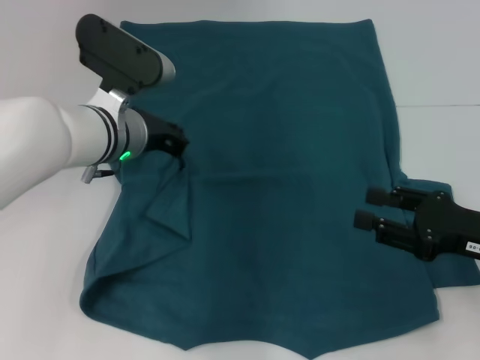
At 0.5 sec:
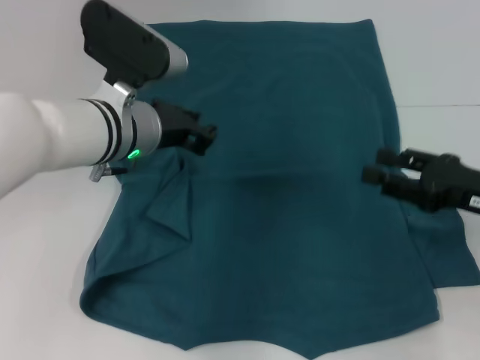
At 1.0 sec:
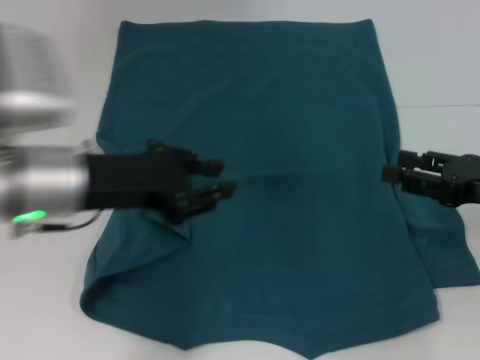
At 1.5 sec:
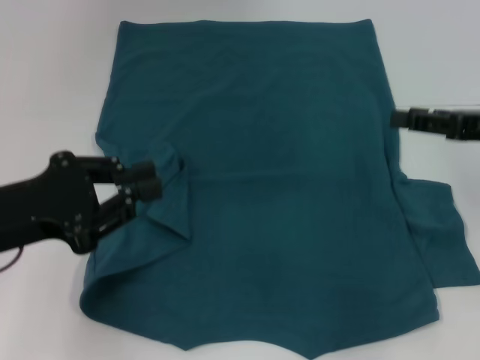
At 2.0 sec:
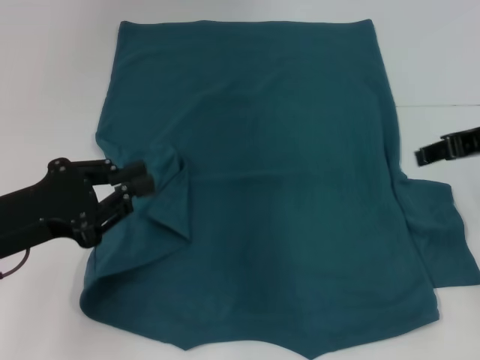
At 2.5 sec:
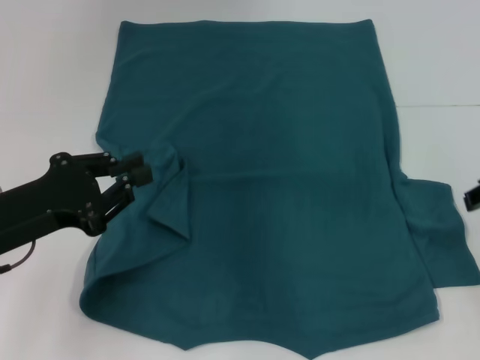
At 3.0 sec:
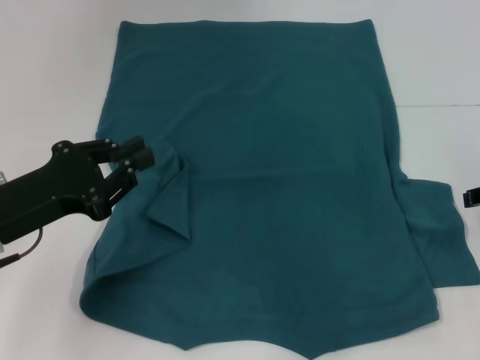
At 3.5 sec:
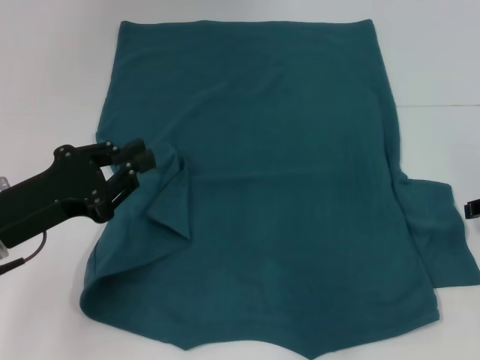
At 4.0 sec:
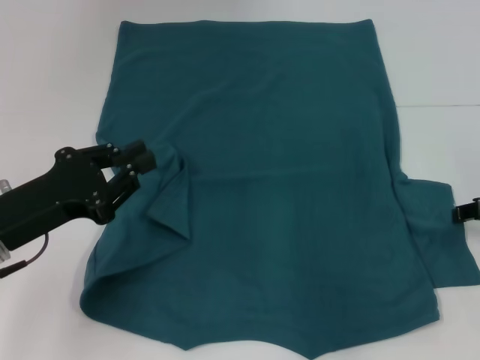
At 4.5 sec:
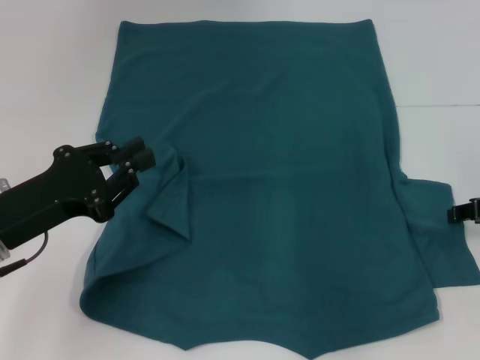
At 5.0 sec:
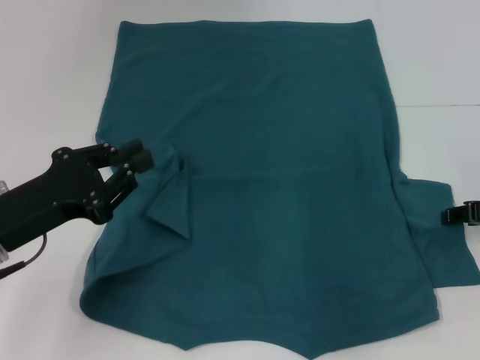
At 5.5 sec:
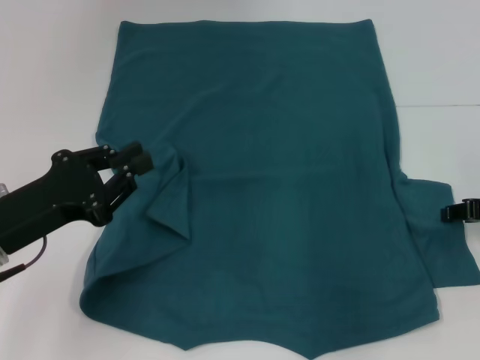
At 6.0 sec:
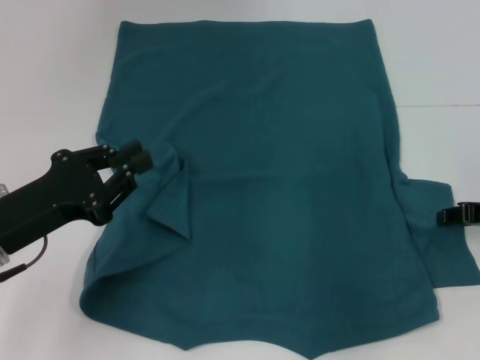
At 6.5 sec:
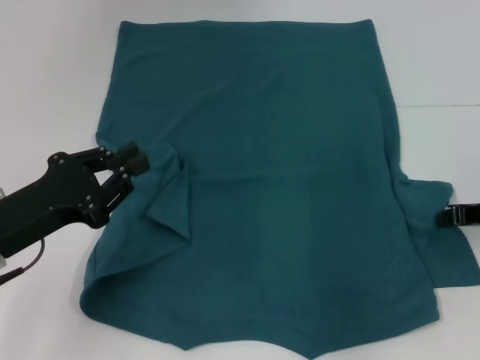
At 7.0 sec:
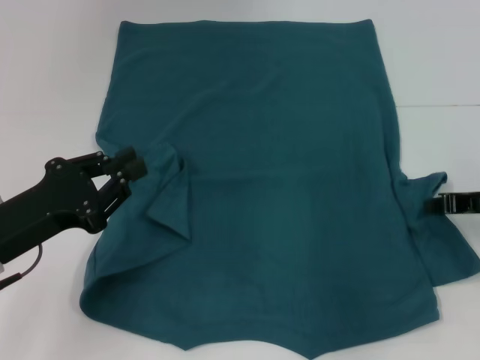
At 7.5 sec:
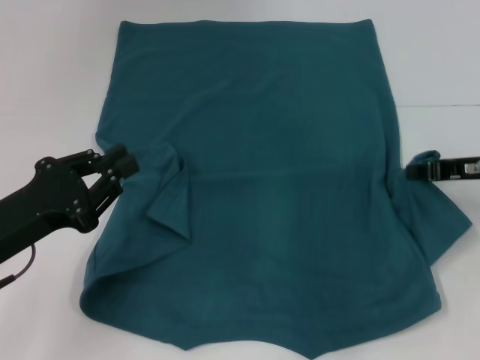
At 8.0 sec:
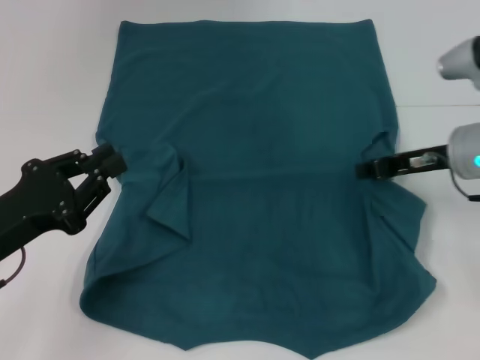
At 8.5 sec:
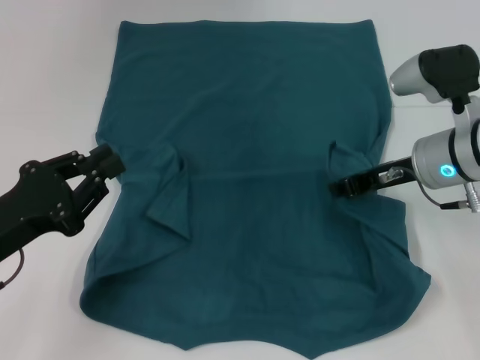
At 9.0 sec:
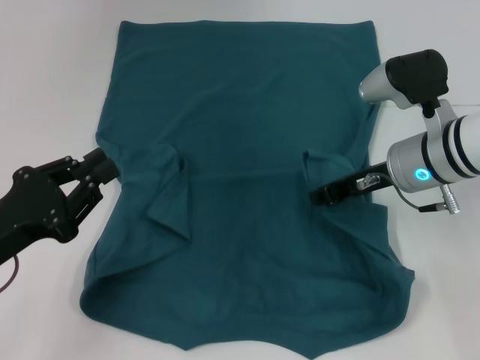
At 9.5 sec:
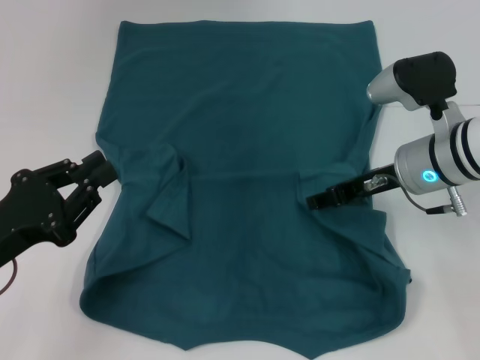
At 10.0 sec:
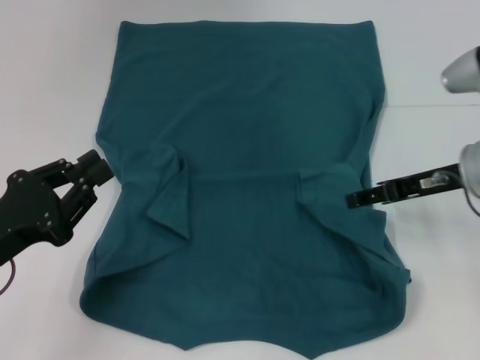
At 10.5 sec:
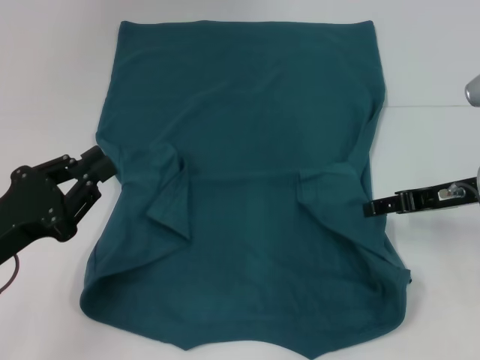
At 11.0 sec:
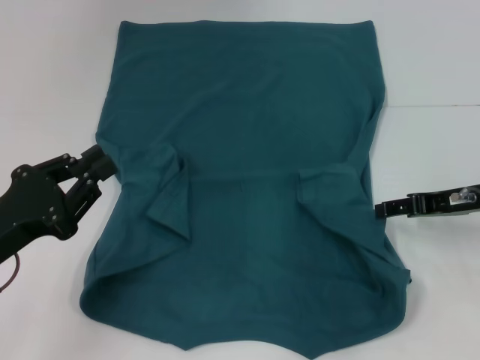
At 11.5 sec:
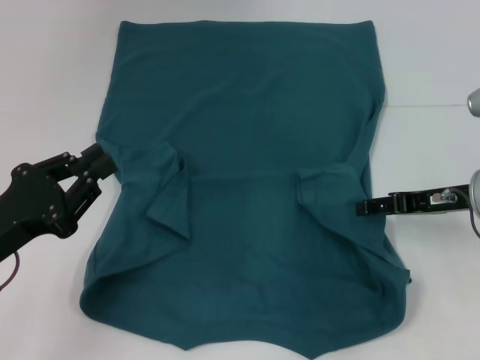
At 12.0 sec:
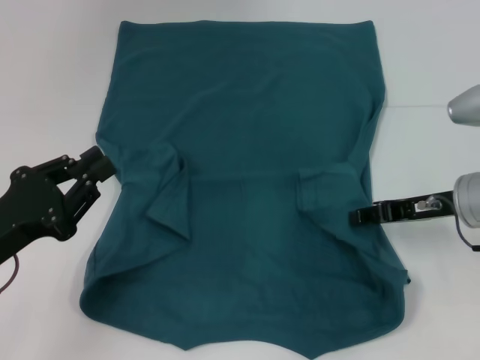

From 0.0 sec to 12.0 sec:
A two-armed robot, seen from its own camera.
From 0.0 sec to 2.0 sec: The left gripper is displaced backward and to the left by roughly 20 cm. The right gripper is displaced upward and forward by approximately 15 cm.
From 2.0 sec to 4.0 sec: The right gripper moves downward and to the right, some 10 cm.
From 4.0 sec to 6.0 sec: The grippers make only small movements.
From 6.0 sec to 8.0 sec: The right gripper shifts some 10 cm to the left, and closes its fingers.
From 8.0 sec to 10.0 sec: The right gripper opens its fingers.
From 10.0 sec to 12.0 sec: The grippers move only a little.

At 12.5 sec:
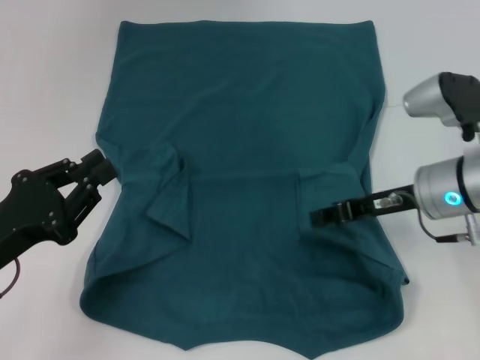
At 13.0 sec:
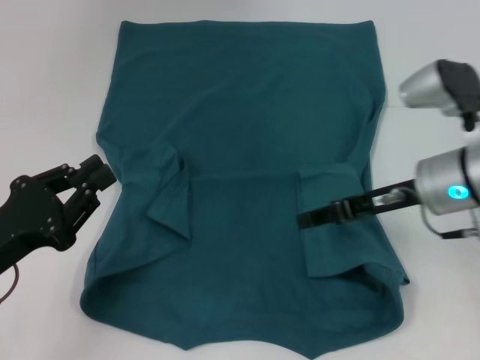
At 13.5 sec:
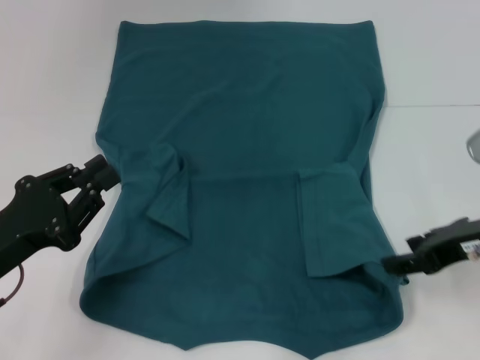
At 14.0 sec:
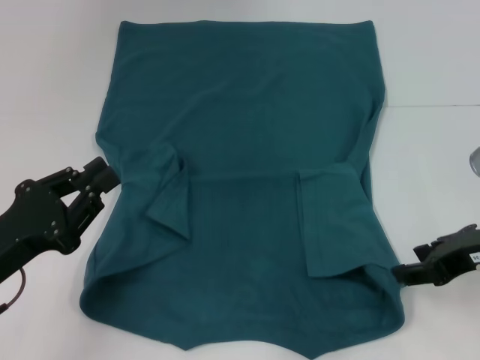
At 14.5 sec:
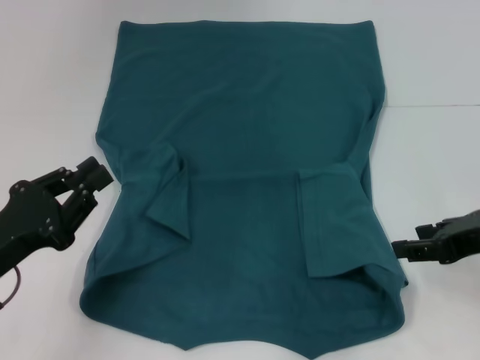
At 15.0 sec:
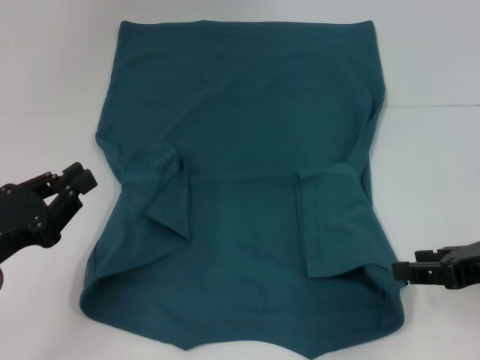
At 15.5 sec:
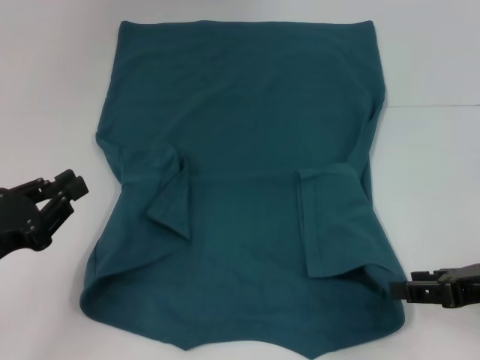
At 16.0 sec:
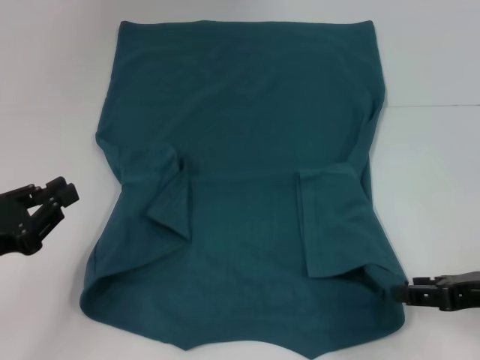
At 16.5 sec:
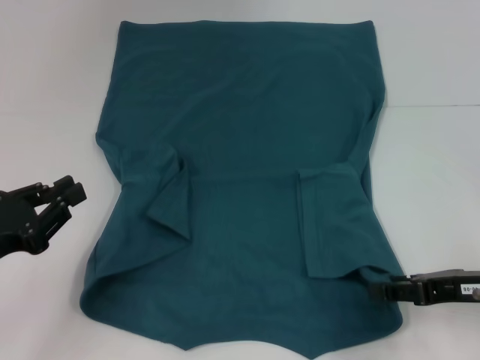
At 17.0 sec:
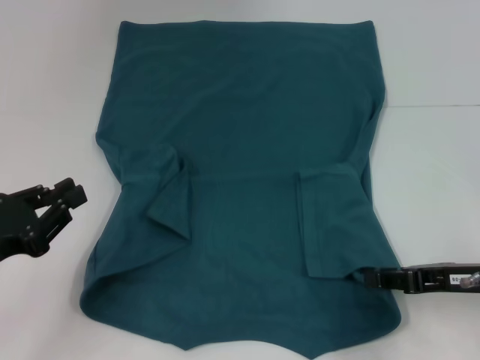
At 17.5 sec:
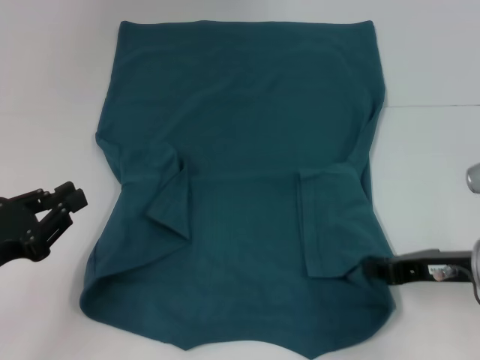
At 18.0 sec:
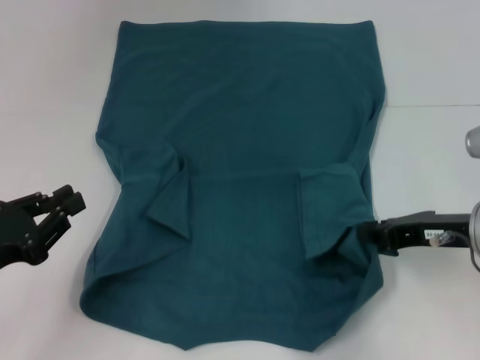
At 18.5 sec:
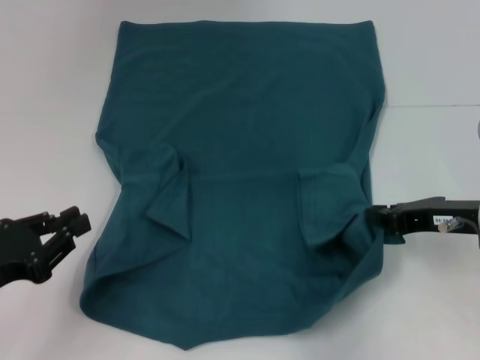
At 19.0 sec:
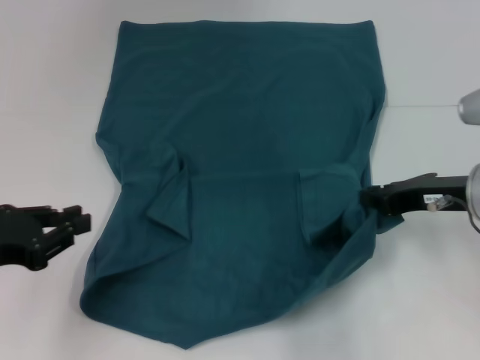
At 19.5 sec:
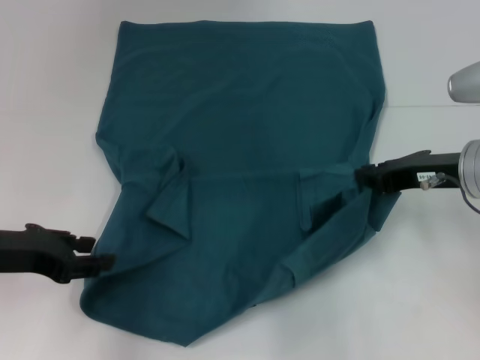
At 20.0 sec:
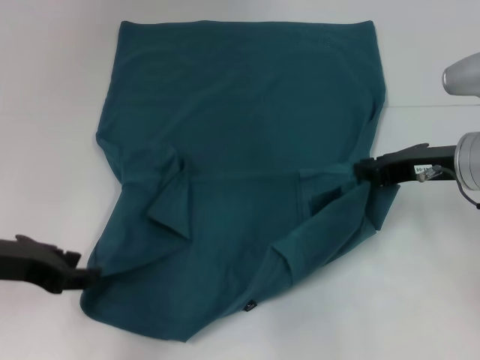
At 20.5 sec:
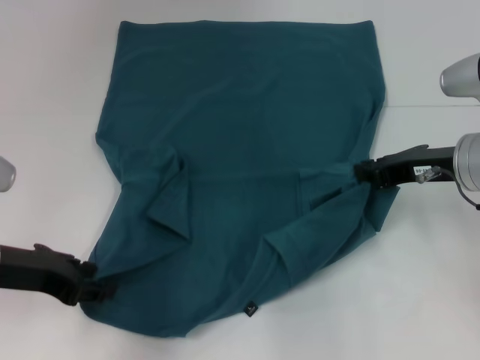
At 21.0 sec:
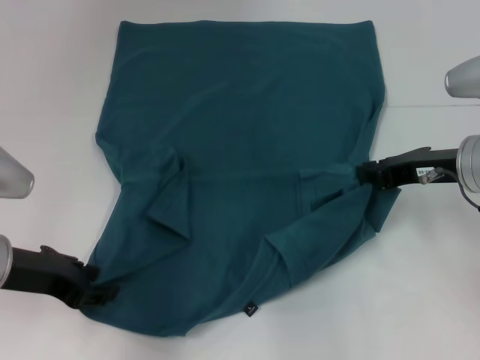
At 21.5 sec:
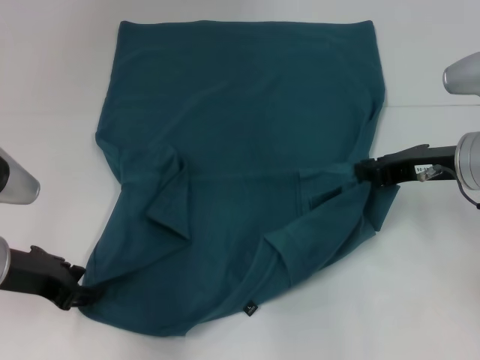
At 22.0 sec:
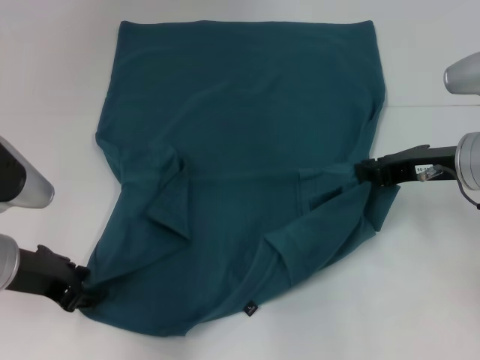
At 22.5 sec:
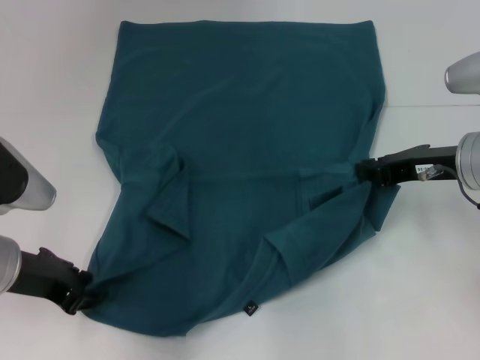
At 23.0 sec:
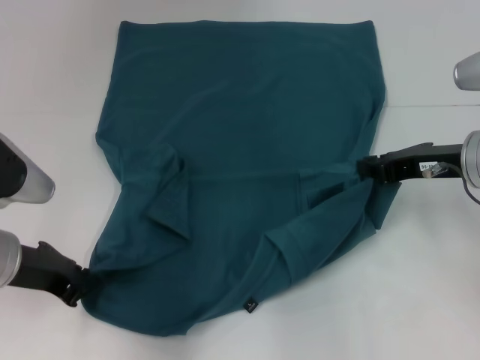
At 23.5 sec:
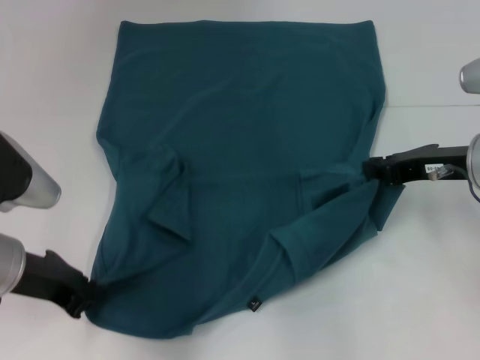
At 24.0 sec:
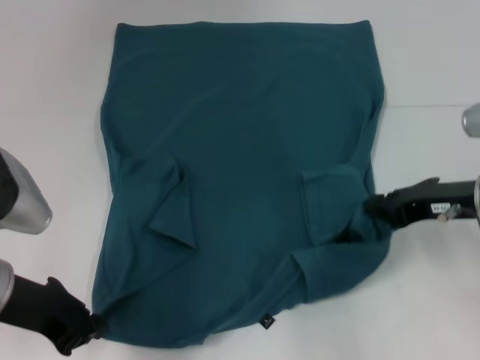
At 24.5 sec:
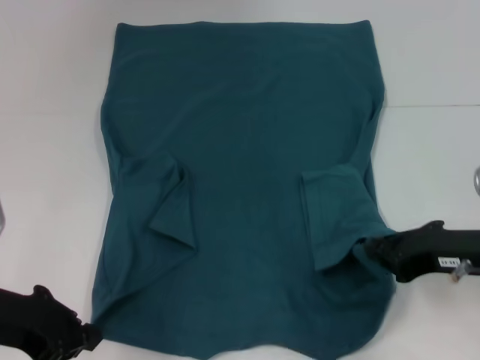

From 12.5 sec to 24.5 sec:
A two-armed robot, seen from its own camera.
Step, from 13.0 sec to 17.5 sec: Grab the bottom right corner with your right hand.
Step, from 18.0 sec to 23.0 sec: Grab the bottom left corner with your left hand.
From 12.5 sec to 14.5 sec: The right gripper heads backward, to the right and upward, covering about 10 cm, and opens up.
From 14.5 sec to 16.5 sec: The right gripper goes some 5 cm downward.
From 16.5 sec to 18.5 sec: The right gripper shifts approximately 5 cm forward, and closes.
From 18.5 sec to 20.5 sec: The right gripper shifts by approximately 5 cm, while the left gripper goes roughly 5 cm forward, and opens up.
From 20.5 sec to 22.5 sec: There are only small adjustments of the grippers.
From 22.5 sec to 24.5 sec: The left gripper moves some 5 cm, and closes. Meanwhile the right gripper goes some 10 cm backward.

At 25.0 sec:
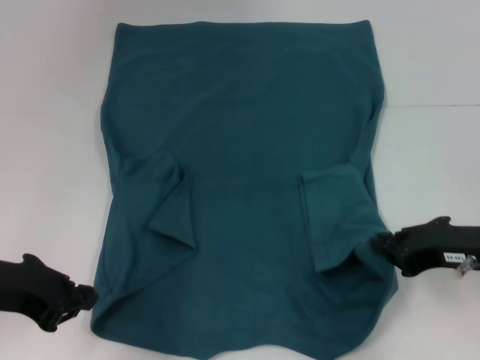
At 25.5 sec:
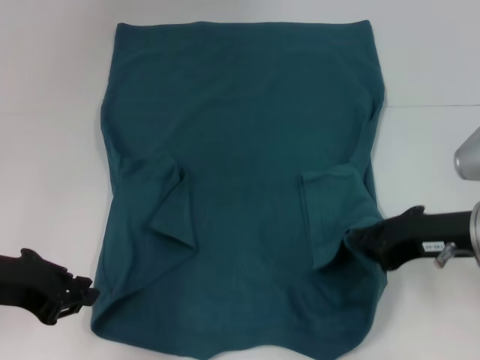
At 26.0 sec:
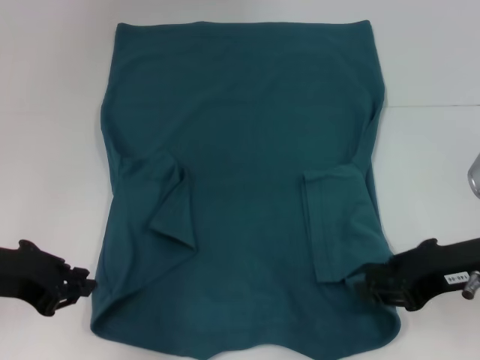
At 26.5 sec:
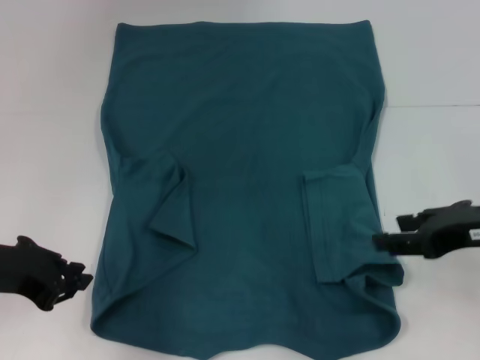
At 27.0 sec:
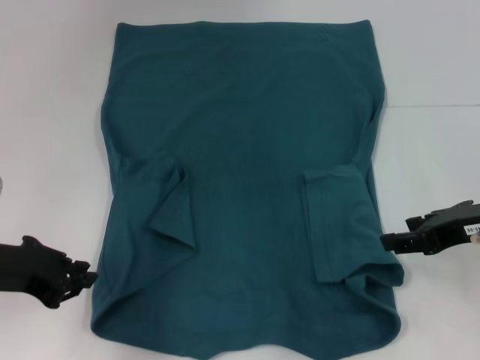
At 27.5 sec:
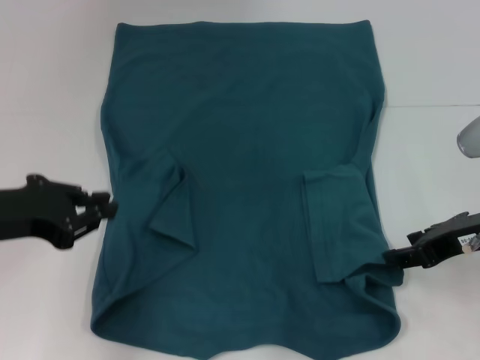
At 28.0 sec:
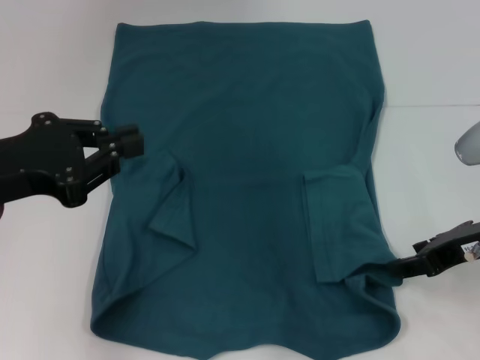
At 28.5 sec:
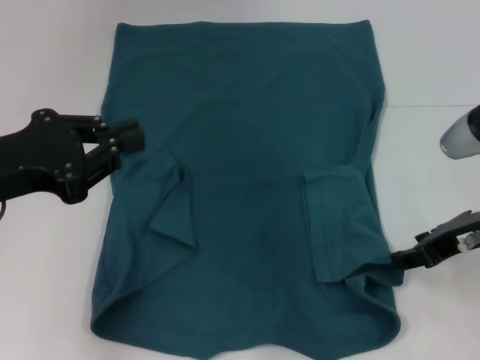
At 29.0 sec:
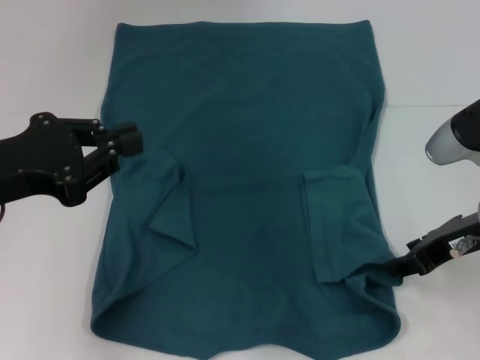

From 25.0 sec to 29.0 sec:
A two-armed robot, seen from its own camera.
From 25.0 sec to 27.0 sec: The right gripper opens up.
From 27.0 sec to 29.0 sec: The left gripper is displaced upward by approximately 5 cm.
